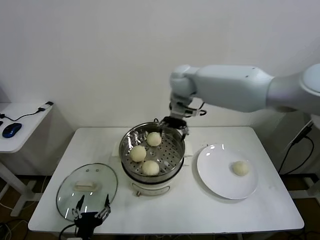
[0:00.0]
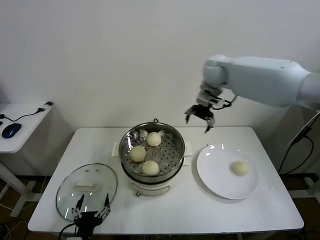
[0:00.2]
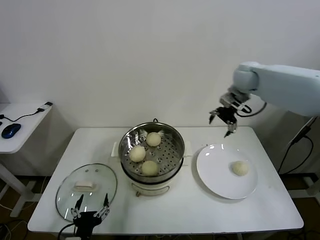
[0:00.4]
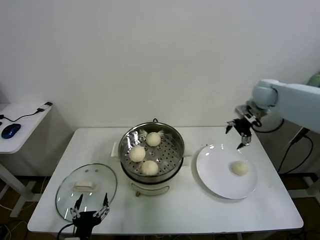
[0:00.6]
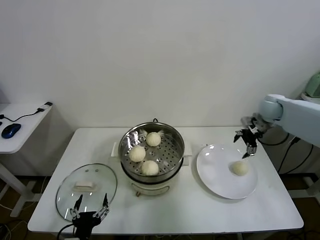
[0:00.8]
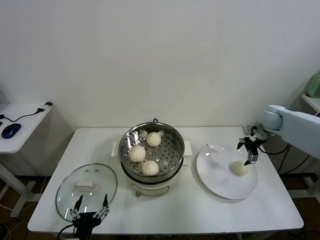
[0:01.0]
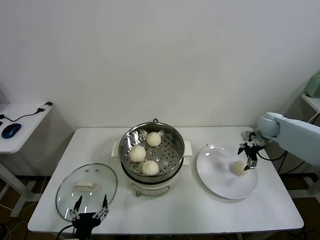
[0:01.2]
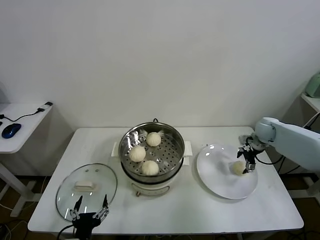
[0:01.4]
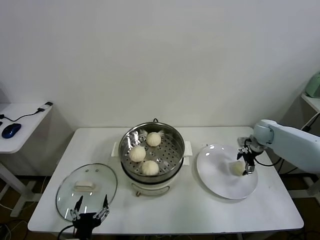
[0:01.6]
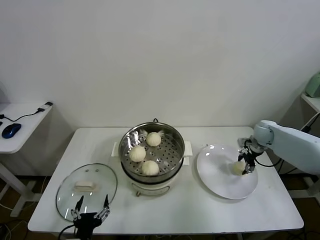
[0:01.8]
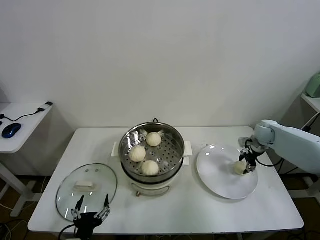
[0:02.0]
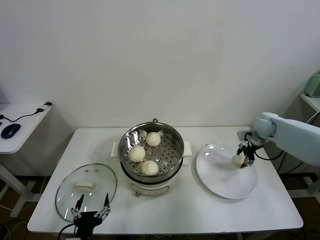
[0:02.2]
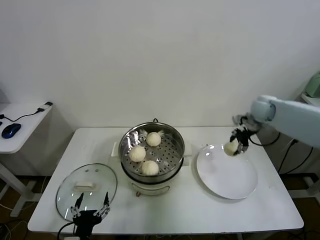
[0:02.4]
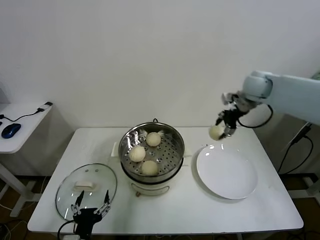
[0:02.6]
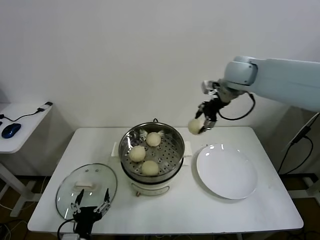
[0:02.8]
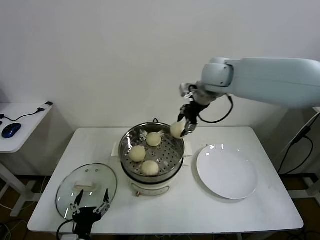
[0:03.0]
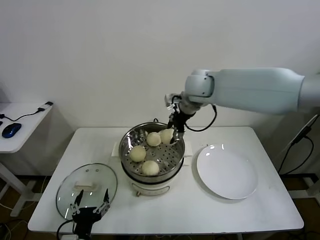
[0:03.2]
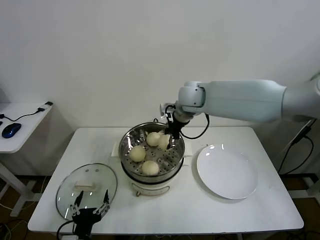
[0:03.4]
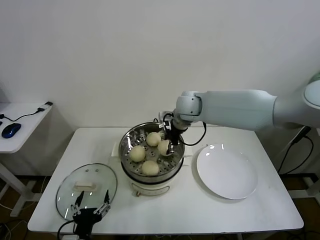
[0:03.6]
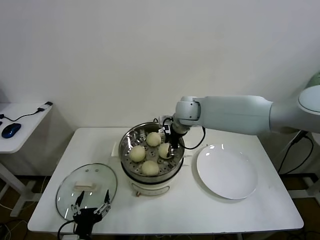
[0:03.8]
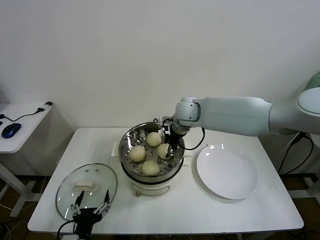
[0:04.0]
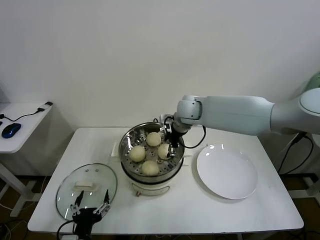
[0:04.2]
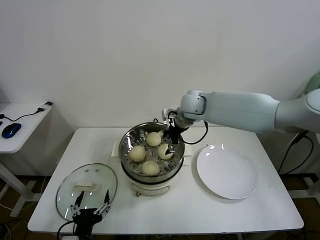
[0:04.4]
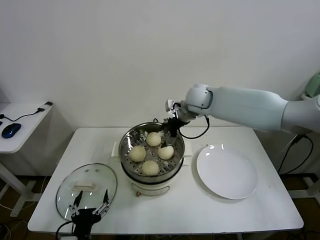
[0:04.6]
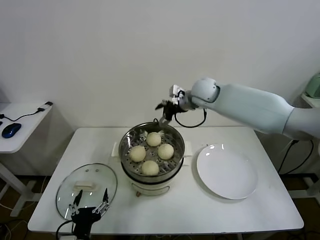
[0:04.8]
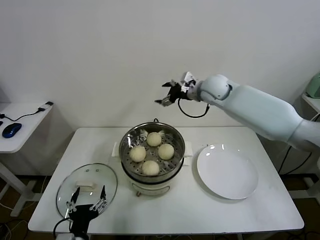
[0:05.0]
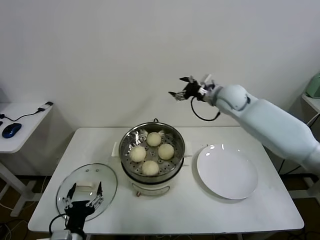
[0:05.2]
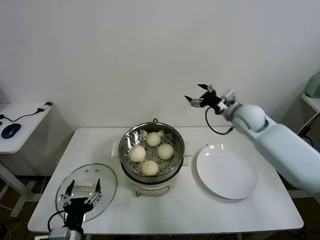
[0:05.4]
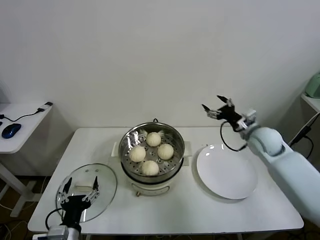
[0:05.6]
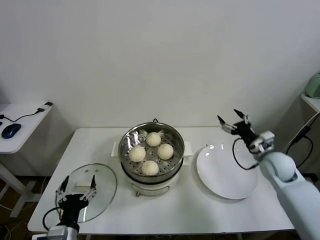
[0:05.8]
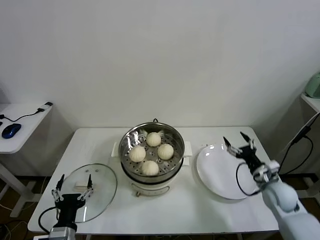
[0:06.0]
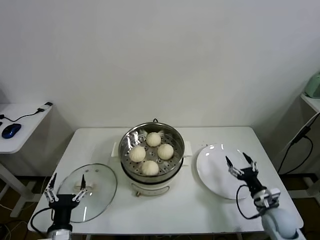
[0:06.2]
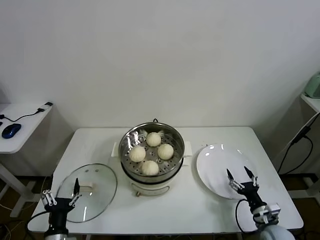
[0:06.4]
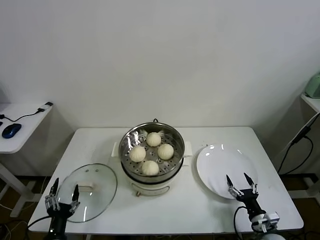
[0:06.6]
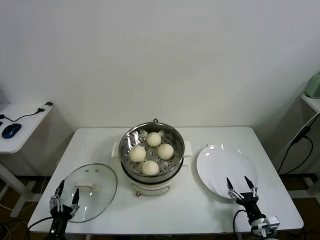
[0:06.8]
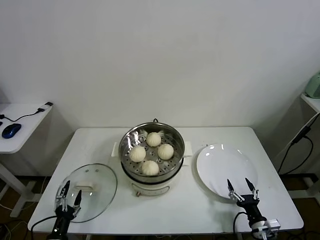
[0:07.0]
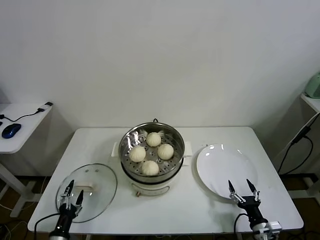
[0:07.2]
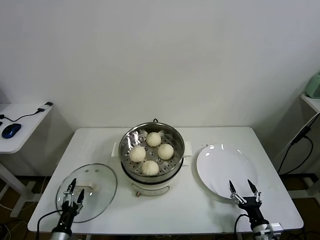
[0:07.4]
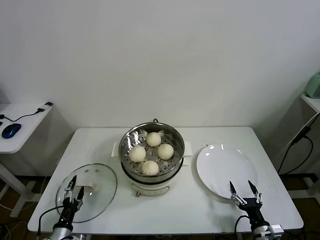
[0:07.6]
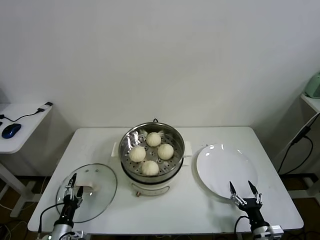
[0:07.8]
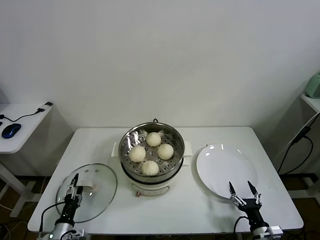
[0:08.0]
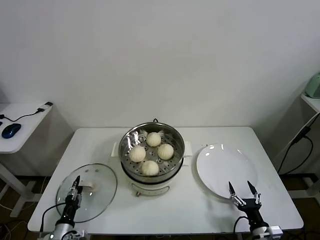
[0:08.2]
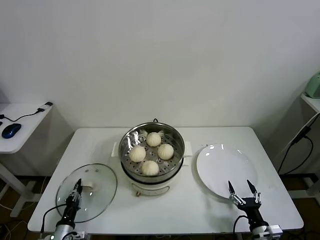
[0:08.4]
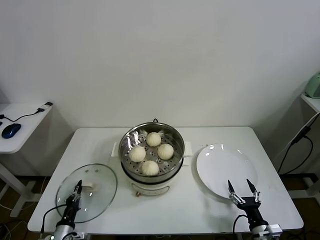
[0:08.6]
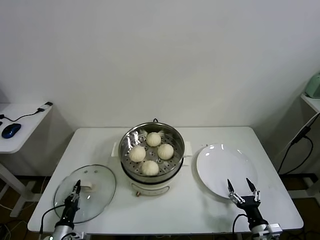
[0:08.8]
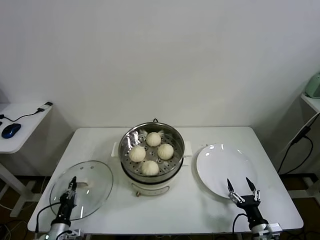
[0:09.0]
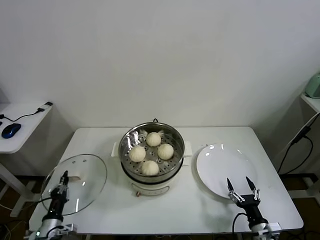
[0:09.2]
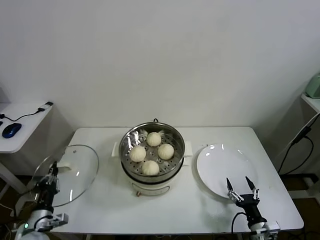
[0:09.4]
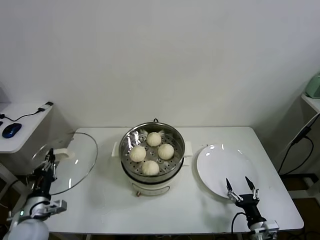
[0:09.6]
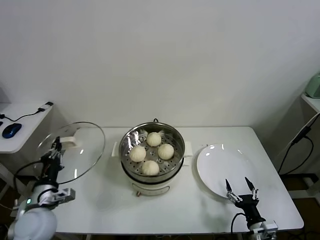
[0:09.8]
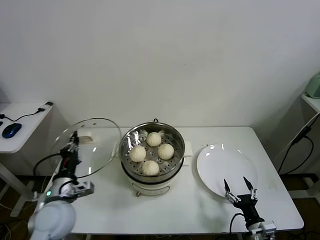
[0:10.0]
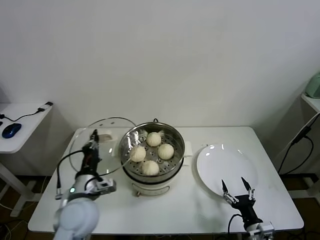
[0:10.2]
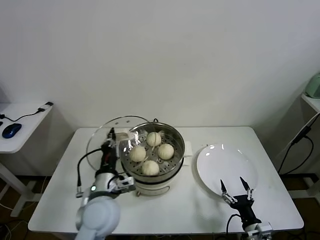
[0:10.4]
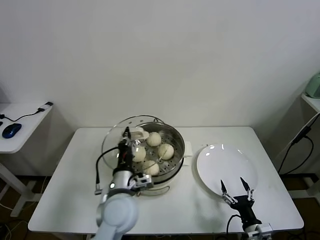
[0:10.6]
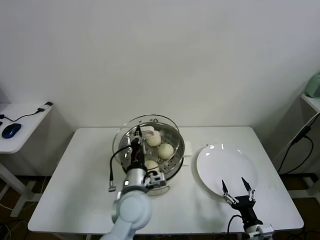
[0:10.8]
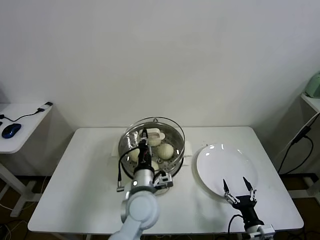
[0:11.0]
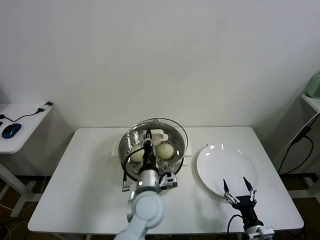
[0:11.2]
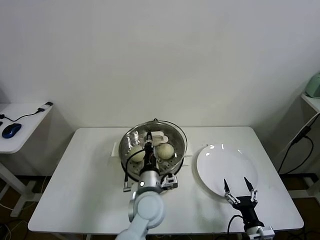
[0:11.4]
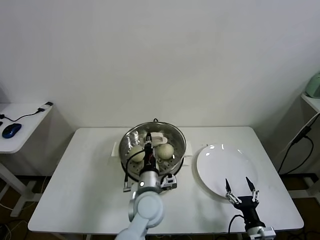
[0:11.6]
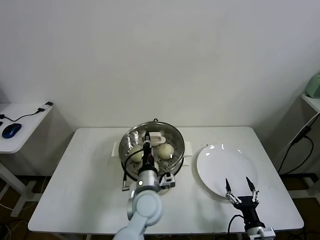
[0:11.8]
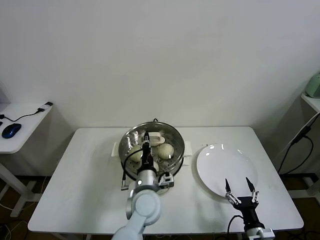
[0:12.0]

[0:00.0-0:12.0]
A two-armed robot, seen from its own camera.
Task of the whole recording: take steamed baozi put them in steamer.
Step, 0:00.0 to 0:02.0: Grasp the baozi in the plate with right gripper.
Step, 0:02.2 to 0:04.4: Place the baozi on the steamer with right gripper.
Step, 0:04.6 to 0:08.6: Grasp the pot lid with left gripper.
0:00.0 to 0:01.6: The right gripper is displaced to the right and downward by some 40 cm.
0:01.6 to 0:03.0: The right gripper moves upward and to the left, approximately 35 cm, and closes.
0:03.0 to 0:04.4: The right gripper moves downward and to the left, approximately 15 cm, and opens.
0:04.4 to 0:06.0: The left gripper changes place by about 5 cm; the right gripper heads to the right, downward and backward, covering approximately 40 cm.
0:06.0 to 0:07.6: The left gripper shifts some 15 cm downward and to the left. Meanwhile the right gripper is displaced backward and downward by about 20 cm.
0:07.6 to 0:09.0: The left gripper closes its fingers.
0:09.0 to 0:10.4: The left gripper shifts some 30 cm upward and to the right.
0:10.4 to 0:12.0: The left gripper heads to the right, covering about 15 cm.

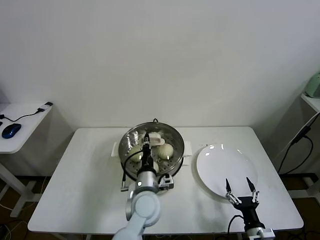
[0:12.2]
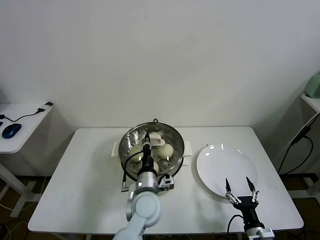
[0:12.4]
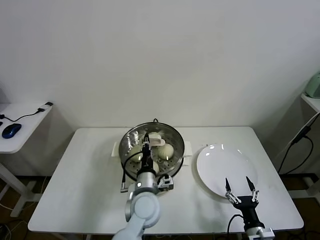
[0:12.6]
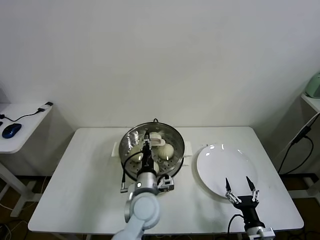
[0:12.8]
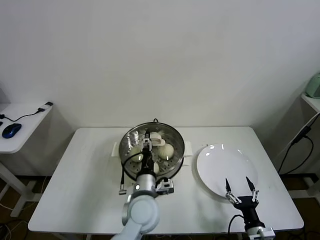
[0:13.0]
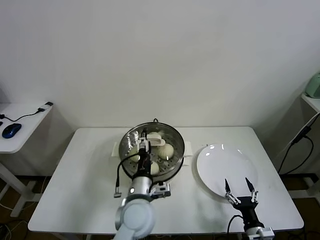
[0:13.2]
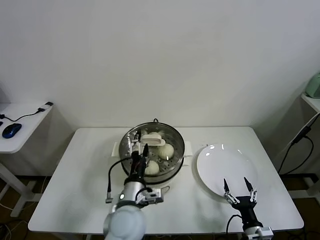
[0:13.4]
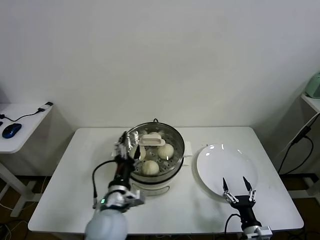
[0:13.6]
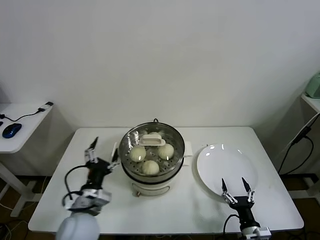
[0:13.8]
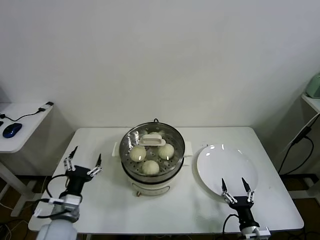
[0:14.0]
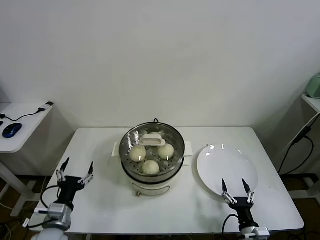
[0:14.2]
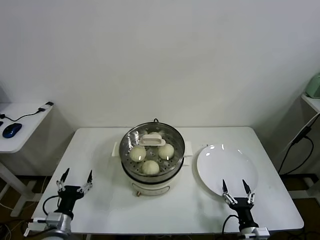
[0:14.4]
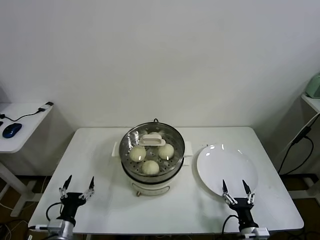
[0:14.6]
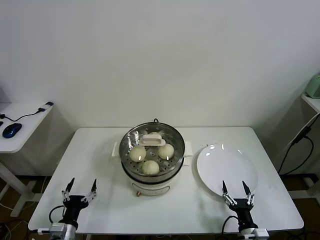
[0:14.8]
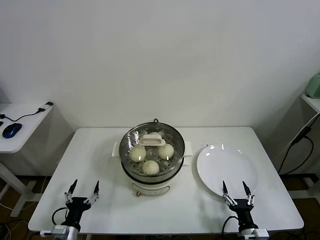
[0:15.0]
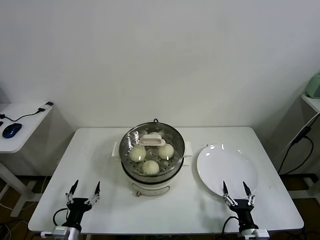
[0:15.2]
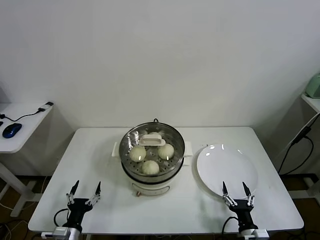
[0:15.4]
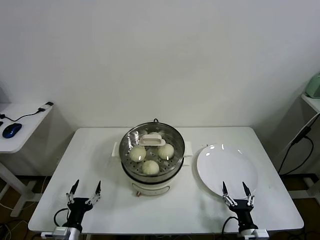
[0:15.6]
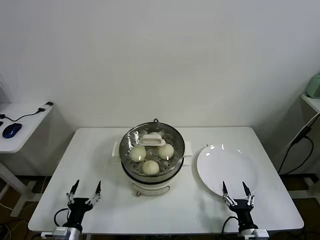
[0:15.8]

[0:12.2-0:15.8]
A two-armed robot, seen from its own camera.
Task of the whole recording: take steamed baozi put them in steamer.
0:12.2 to 0:14.0: The left gripper travels to the left by about 20 cm, and opens up.
0:14.0 to 0:15.8: The left gripper heads downward and backward, covering approximately 15 cm.
